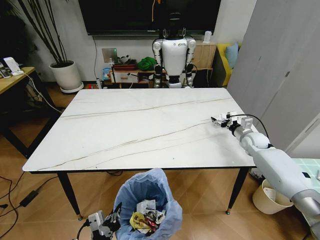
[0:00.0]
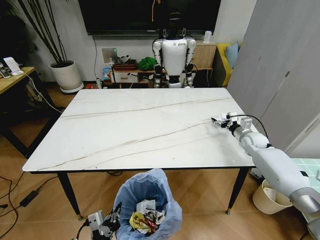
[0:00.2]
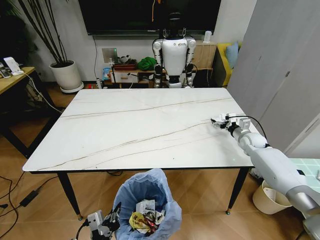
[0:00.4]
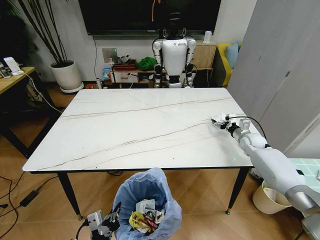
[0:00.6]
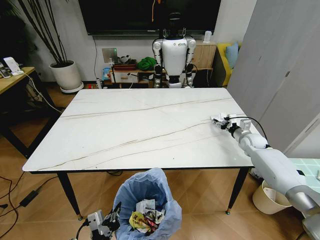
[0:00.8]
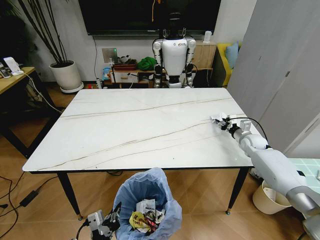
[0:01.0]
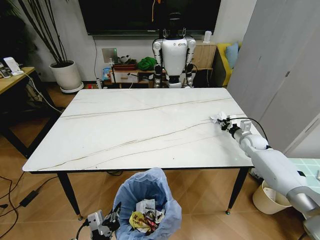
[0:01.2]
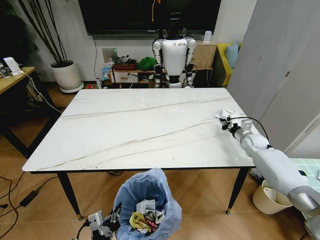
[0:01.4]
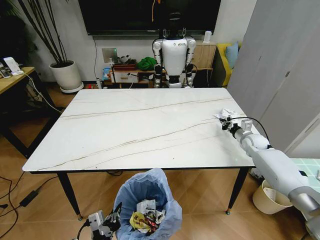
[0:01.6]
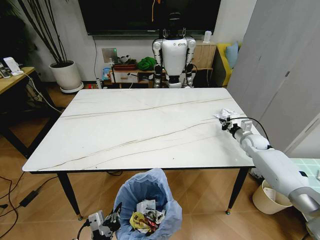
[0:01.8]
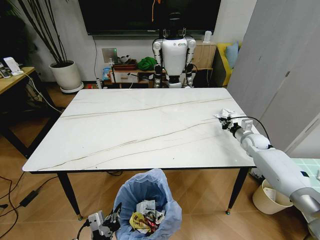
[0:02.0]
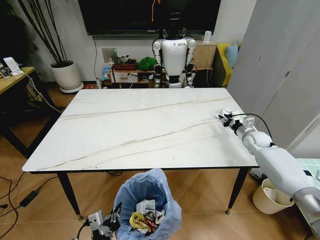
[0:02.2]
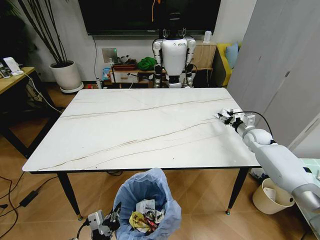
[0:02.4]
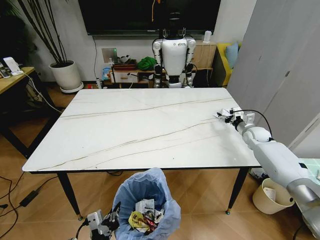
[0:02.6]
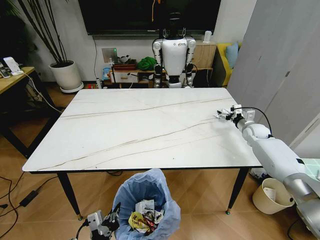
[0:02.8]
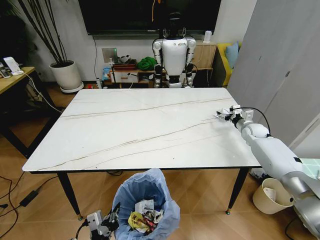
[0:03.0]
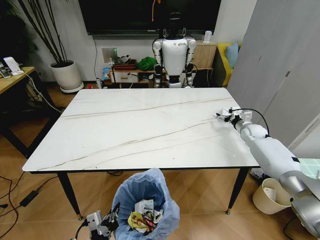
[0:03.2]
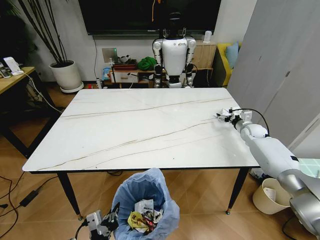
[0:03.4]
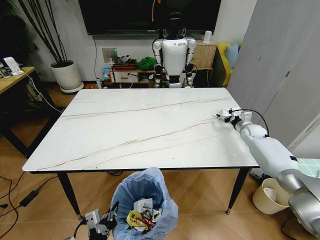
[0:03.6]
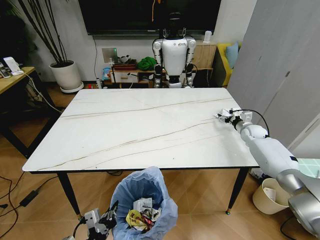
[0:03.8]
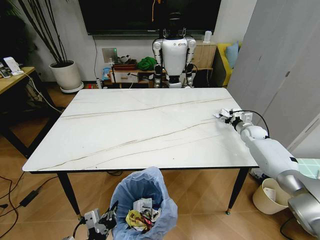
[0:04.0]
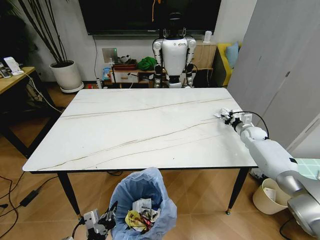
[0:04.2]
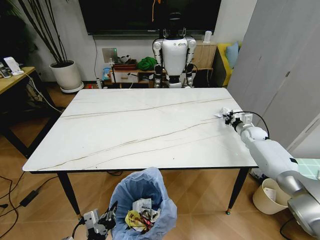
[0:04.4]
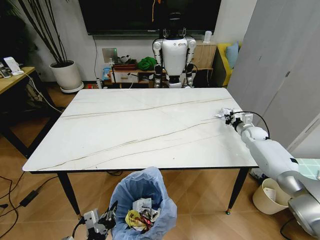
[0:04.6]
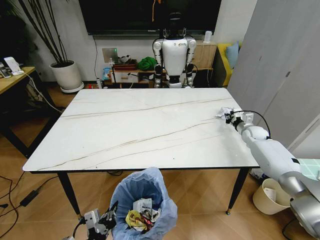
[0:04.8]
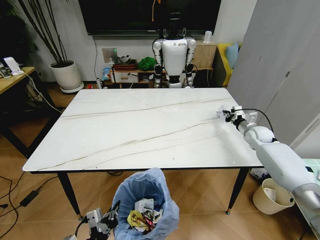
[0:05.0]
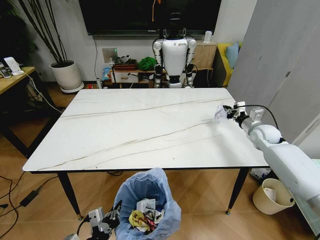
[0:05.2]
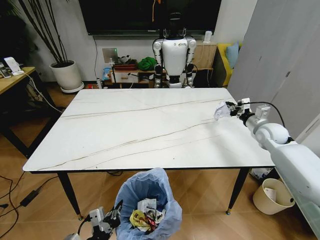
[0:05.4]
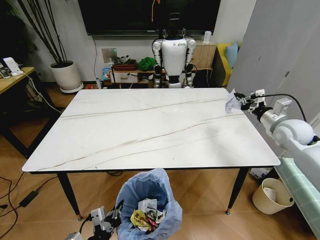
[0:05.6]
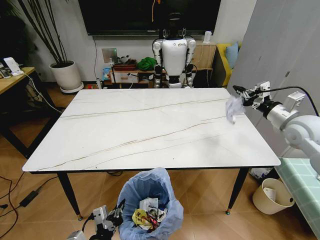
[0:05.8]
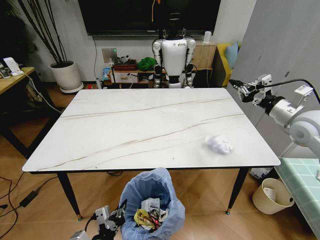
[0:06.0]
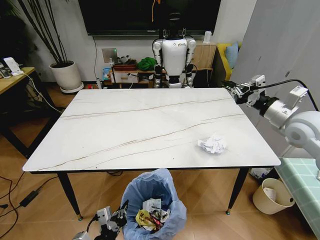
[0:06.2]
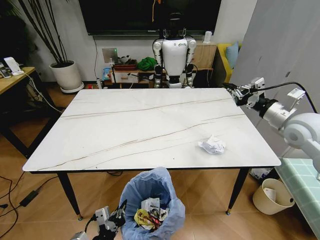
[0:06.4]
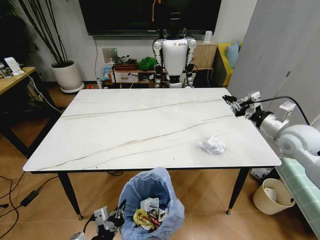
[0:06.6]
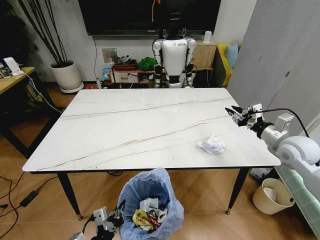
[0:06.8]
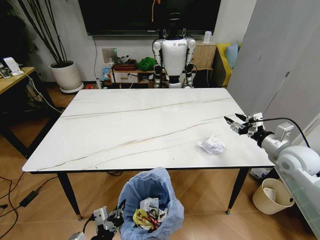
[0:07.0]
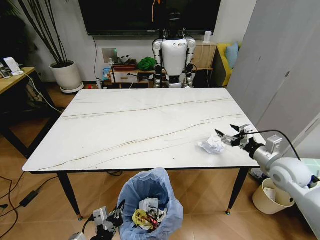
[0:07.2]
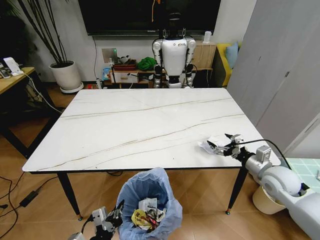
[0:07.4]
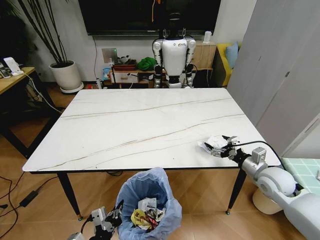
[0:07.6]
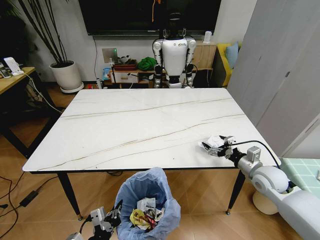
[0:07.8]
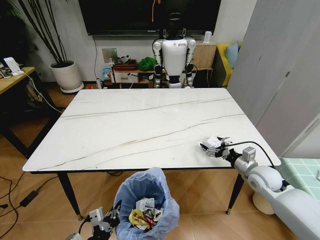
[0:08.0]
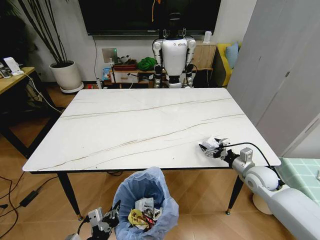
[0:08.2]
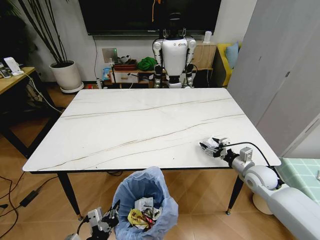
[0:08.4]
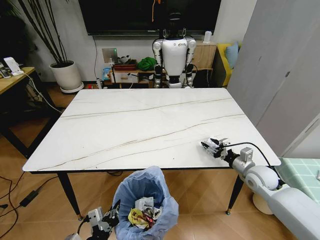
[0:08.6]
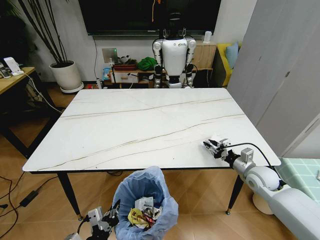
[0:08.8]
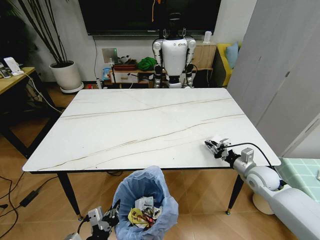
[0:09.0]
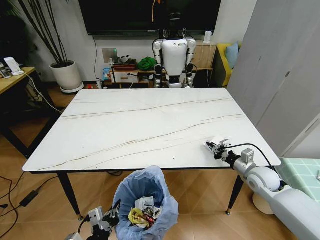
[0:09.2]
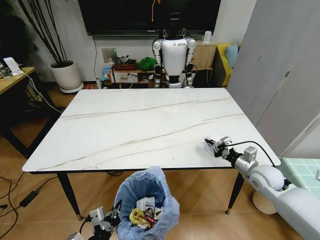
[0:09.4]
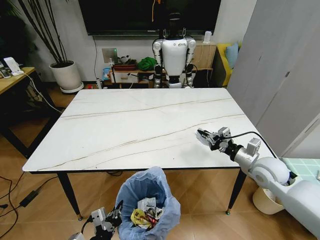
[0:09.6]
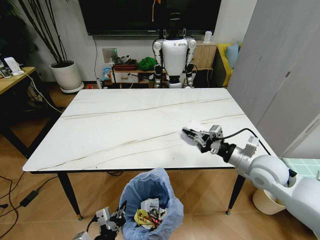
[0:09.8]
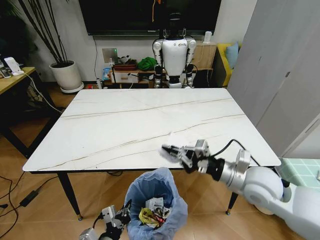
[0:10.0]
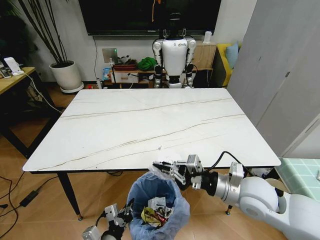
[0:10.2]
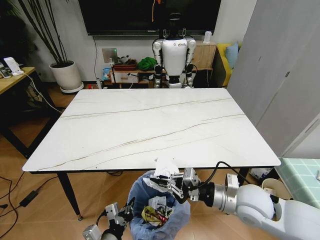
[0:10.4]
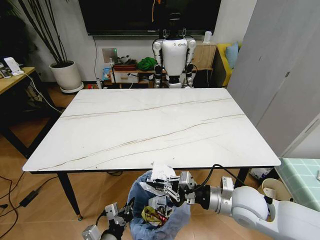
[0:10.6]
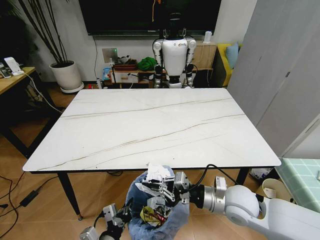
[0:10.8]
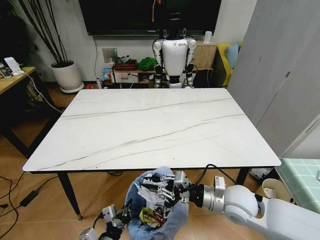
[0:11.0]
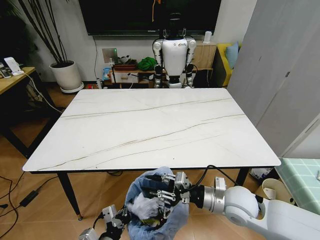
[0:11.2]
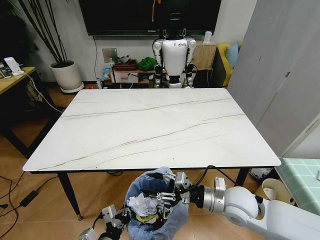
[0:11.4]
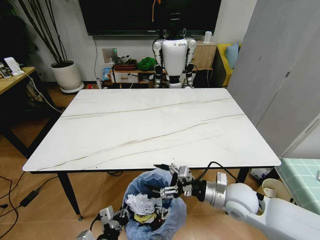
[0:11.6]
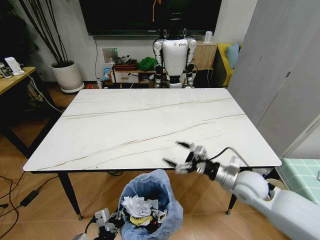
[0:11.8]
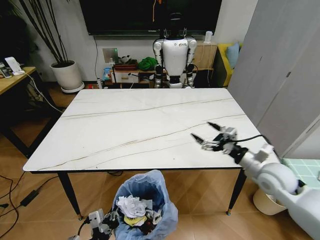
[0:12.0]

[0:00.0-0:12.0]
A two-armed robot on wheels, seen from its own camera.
Task of the whole recording: Pick up the trash bin and place the trash from the table into it.
0:00.0 to 0:01.6: The right gripper closes.
0:01.6 to 0:03.0: The right gripper opens its fingers.
0:03.0 to 0:04.4: The right gripper closes up.
0:04.4 to 0:06.0: The right gripper travels upward and backward by some 30 cm.
0:06.0 to 0:07.6: The right gripper heads downward, covering some 20 cm, and opens up.
0:07.6 to 0:09.0: The right gripper moves about 5 cm, and closes its fingers.
0:09.0 to 0:10.4: The right gripper travels to the left, backward and upward by approximately 20 cm.
0:10.4 to 0:12.0: The right gripper goes some 10 cm to the right and forward, and opens its fingers.

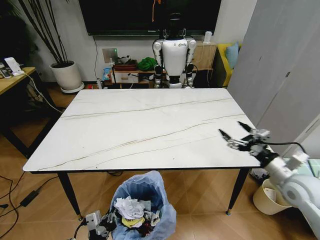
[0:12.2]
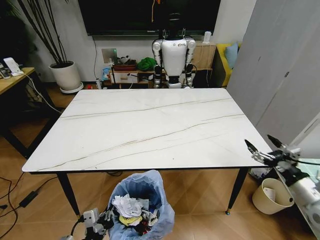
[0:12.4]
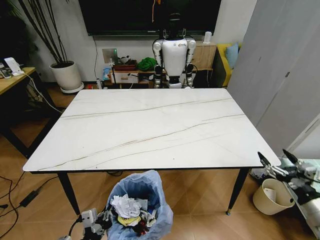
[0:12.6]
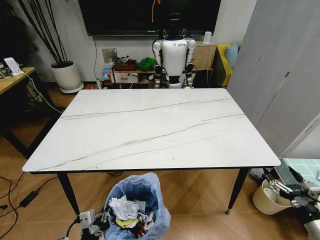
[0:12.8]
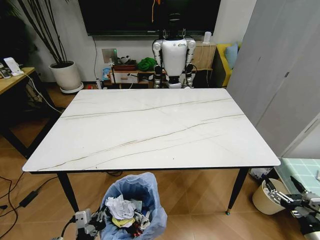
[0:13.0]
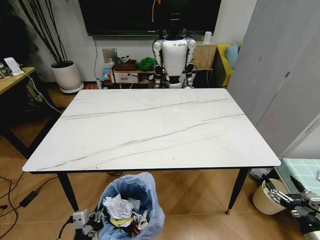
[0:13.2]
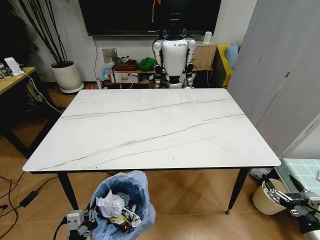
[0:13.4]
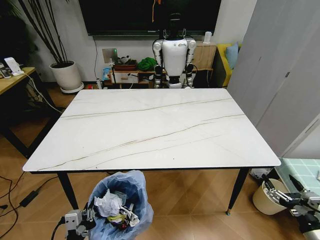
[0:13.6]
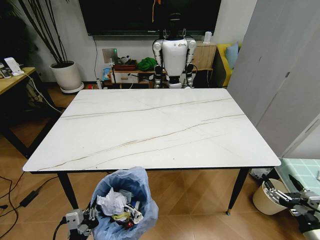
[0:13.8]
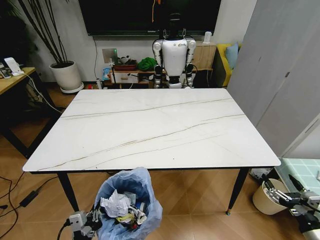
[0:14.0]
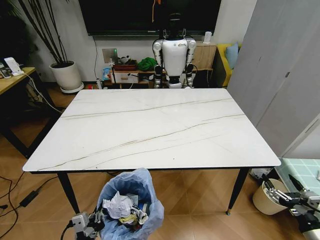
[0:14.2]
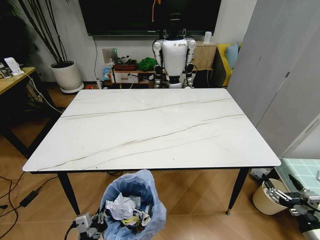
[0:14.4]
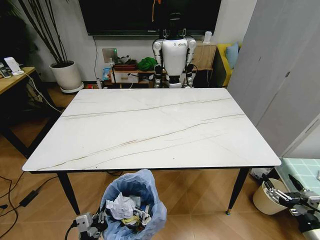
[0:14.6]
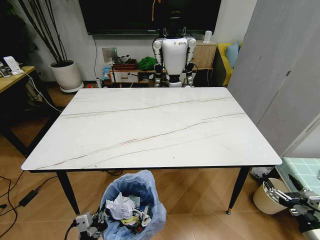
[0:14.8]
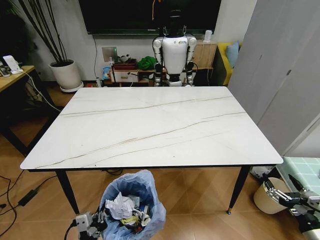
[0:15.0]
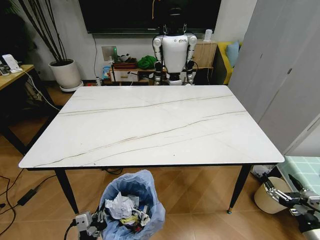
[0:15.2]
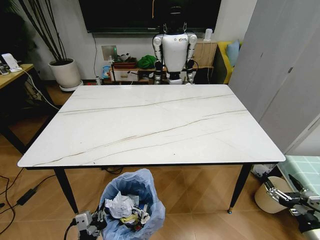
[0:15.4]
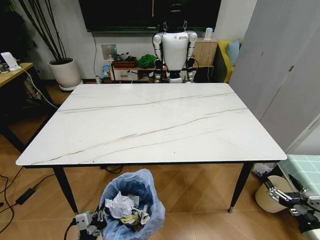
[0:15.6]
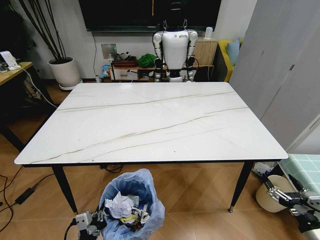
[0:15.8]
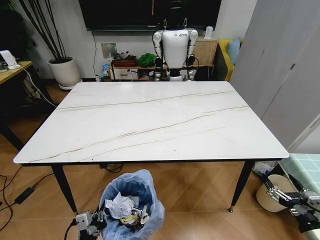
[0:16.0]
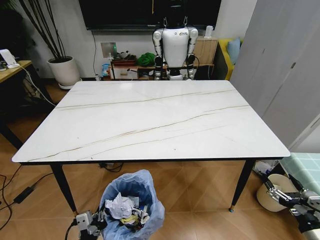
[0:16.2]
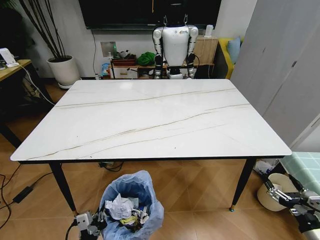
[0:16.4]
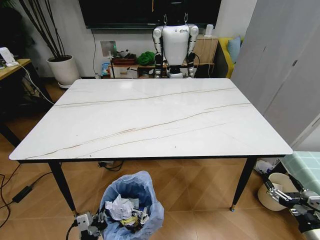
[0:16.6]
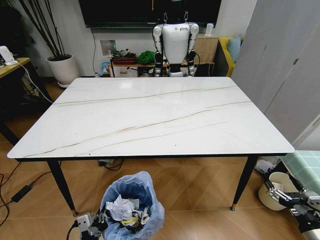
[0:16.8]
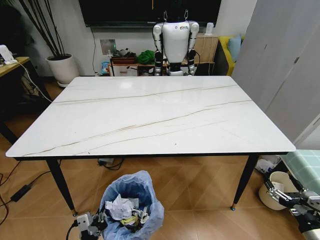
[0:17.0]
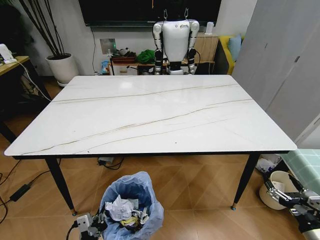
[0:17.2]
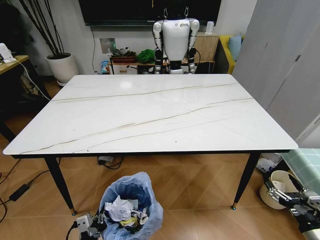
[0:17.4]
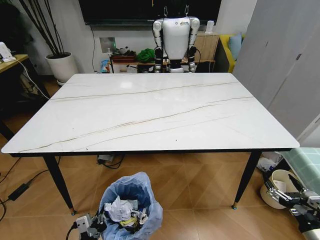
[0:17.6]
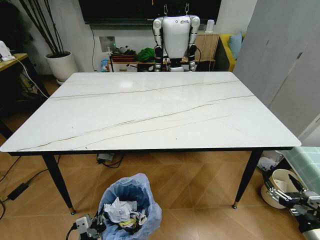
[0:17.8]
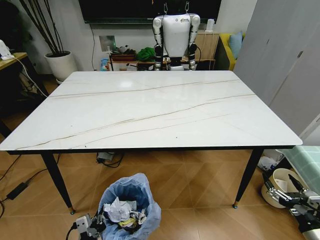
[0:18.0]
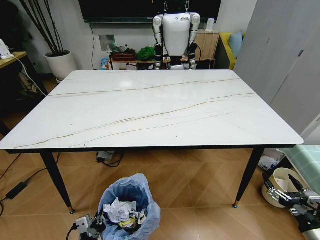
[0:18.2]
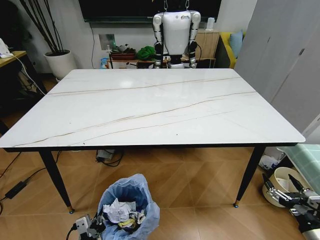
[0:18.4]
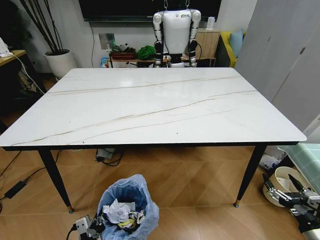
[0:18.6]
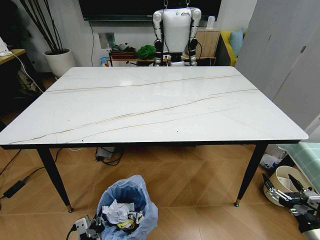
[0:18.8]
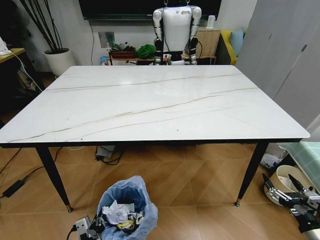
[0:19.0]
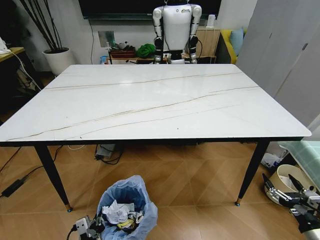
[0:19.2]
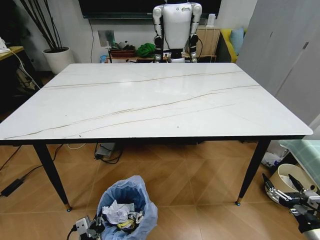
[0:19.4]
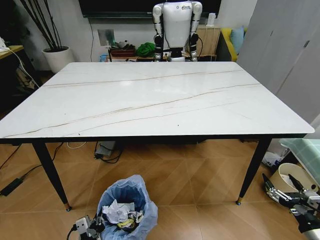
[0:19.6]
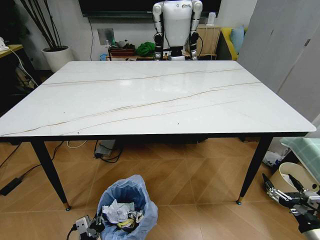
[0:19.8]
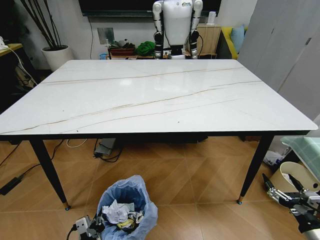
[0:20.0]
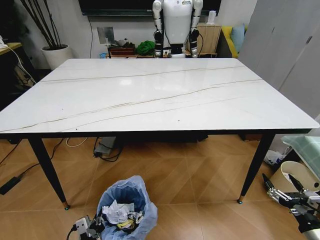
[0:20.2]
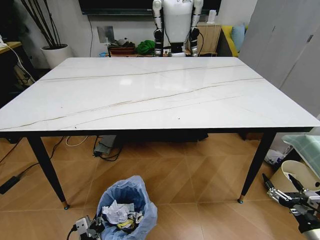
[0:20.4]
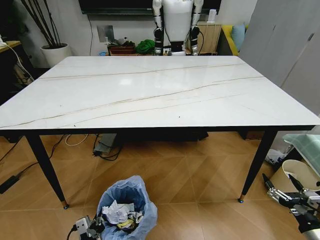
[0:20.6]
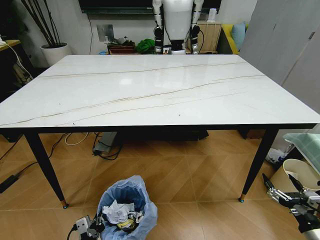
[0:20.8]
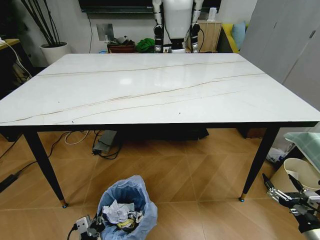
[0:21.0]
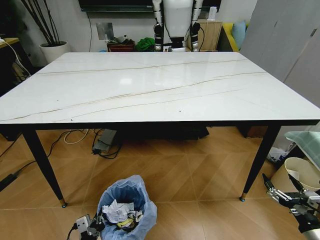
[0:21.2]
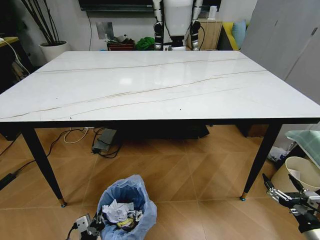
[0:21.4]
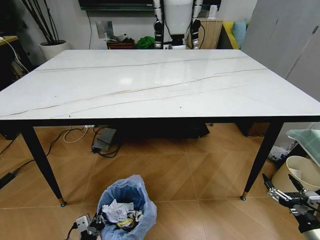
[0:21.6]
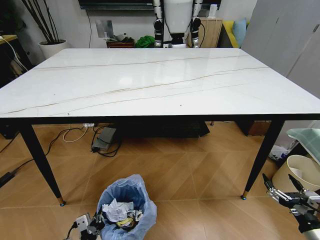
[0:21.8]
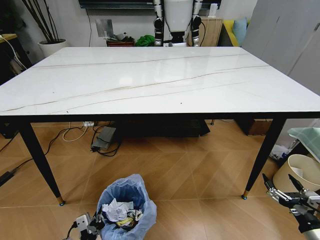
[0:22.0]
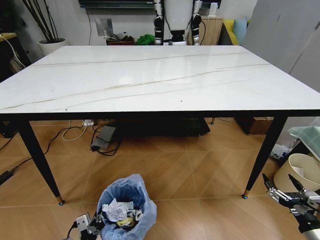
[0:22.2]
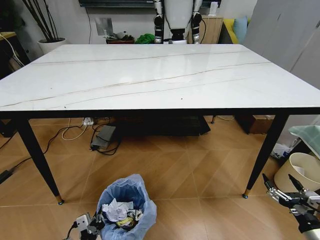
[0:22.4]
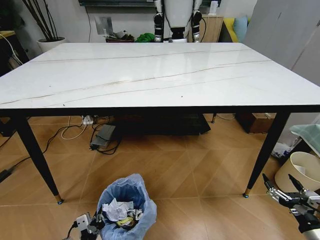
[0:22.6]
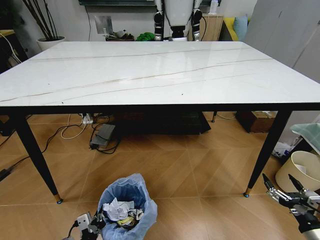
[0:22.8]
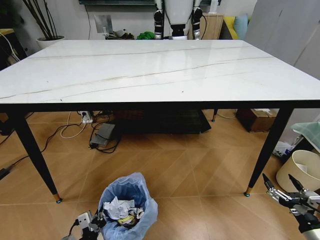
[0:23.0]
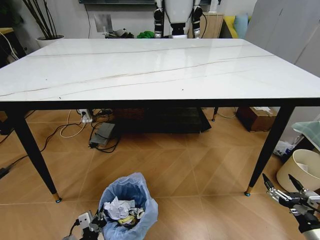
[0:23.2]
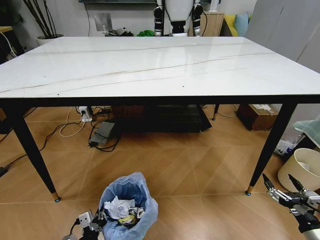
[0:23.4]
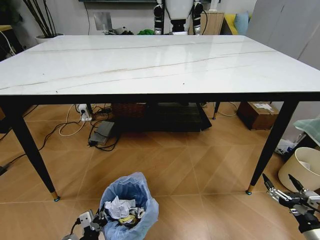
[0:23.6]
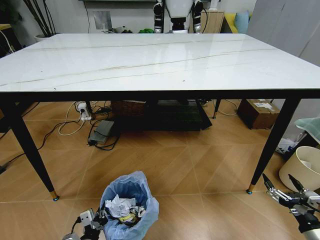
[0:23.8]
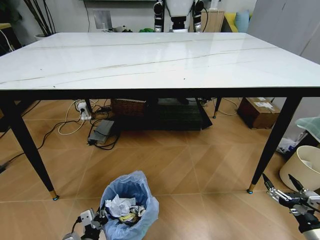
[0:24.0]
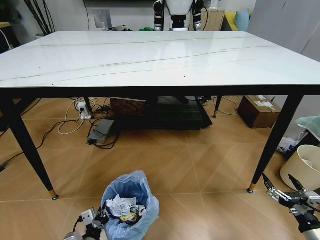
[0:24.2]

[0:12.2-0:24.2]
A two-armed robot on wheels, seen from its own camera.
Task of the whole recording: Pick up the trash bin and place the trash from the table into it.
0:12.2 to 0:13.8: The right gripper goes some 20 cm backward and downward.
0:13.8 to 0:15.2: There are only small adjustments of the grippers.
